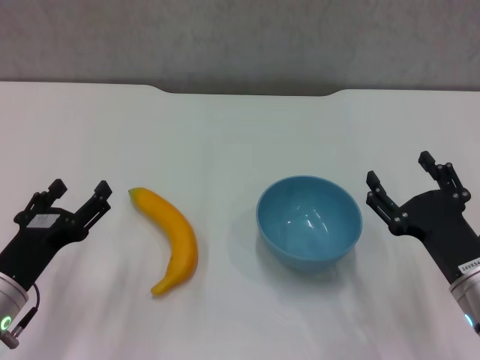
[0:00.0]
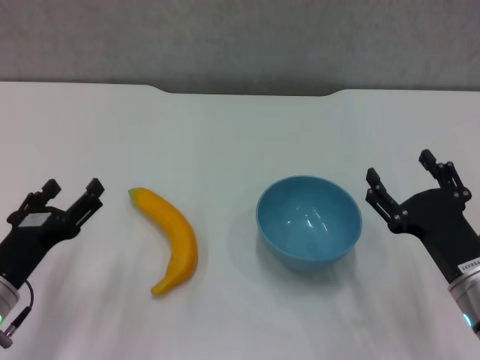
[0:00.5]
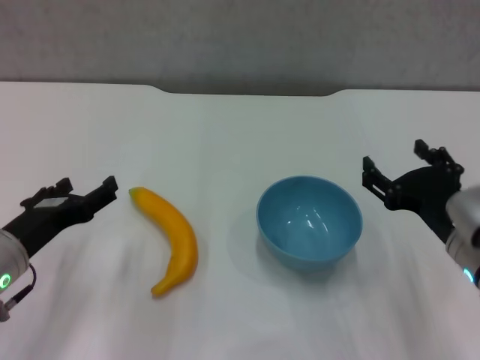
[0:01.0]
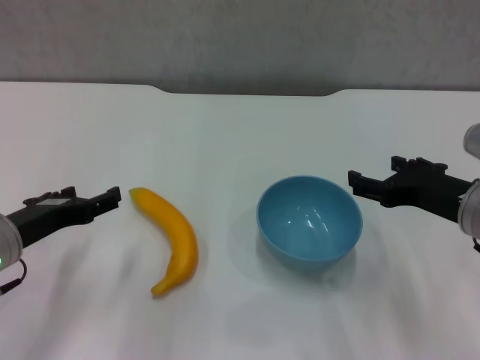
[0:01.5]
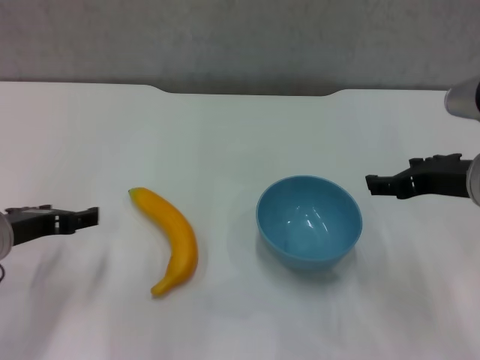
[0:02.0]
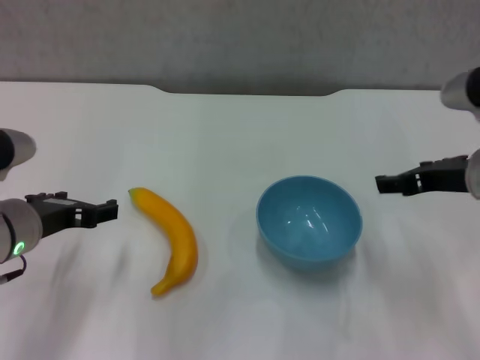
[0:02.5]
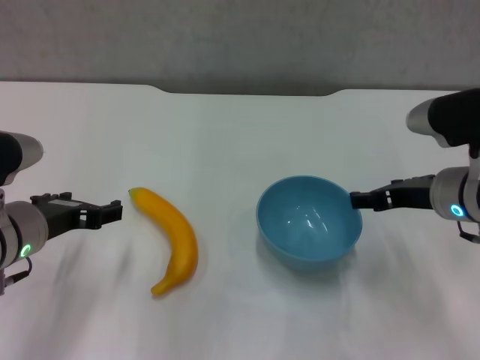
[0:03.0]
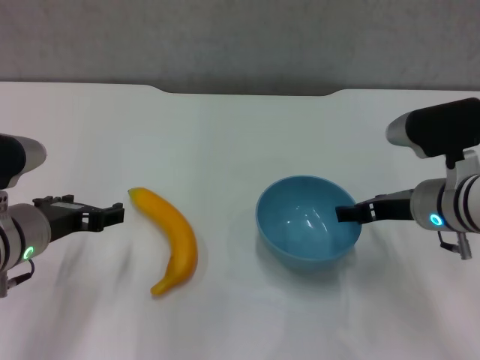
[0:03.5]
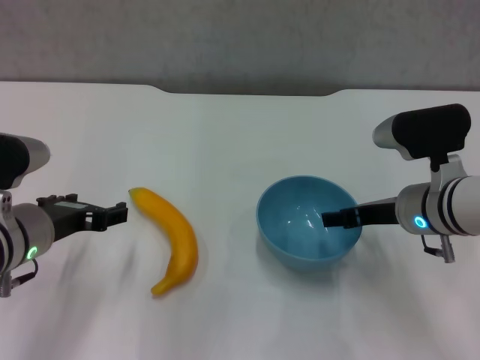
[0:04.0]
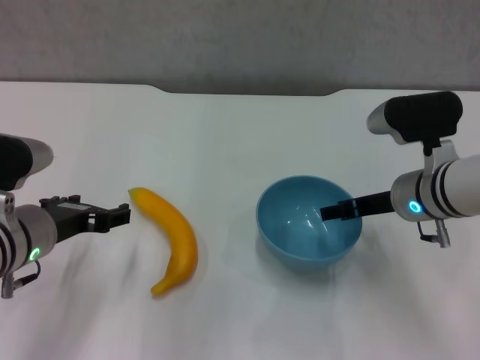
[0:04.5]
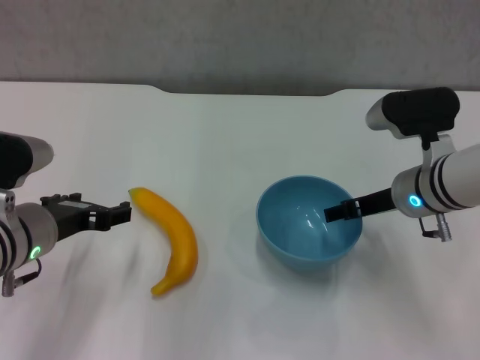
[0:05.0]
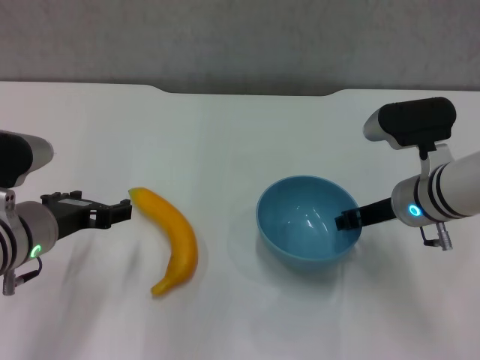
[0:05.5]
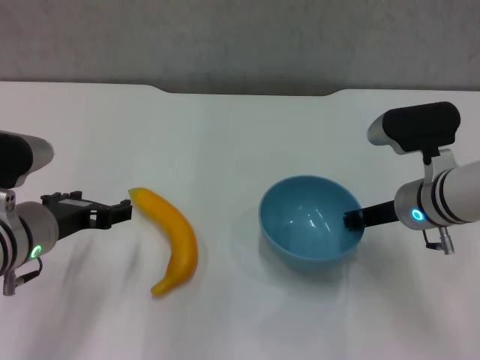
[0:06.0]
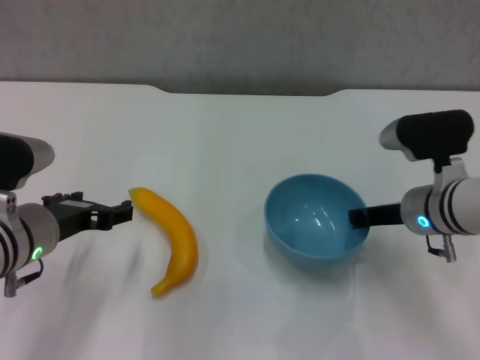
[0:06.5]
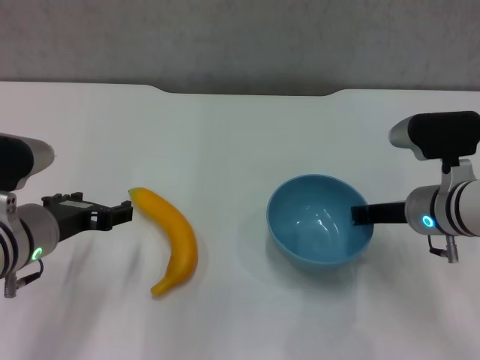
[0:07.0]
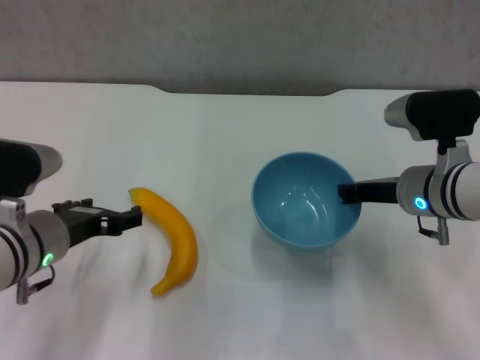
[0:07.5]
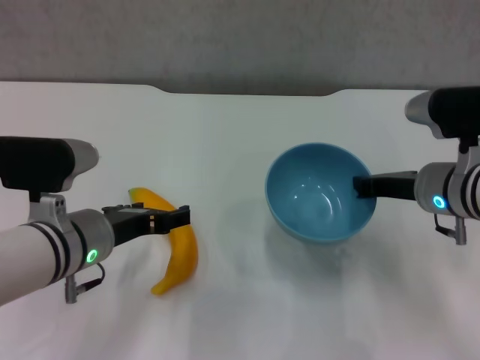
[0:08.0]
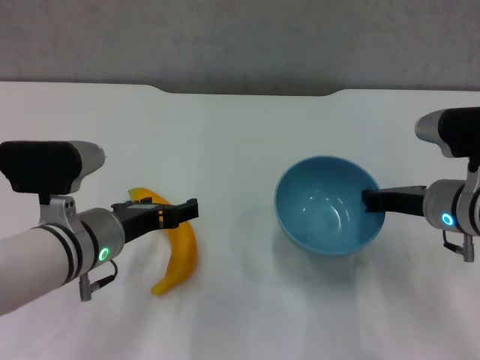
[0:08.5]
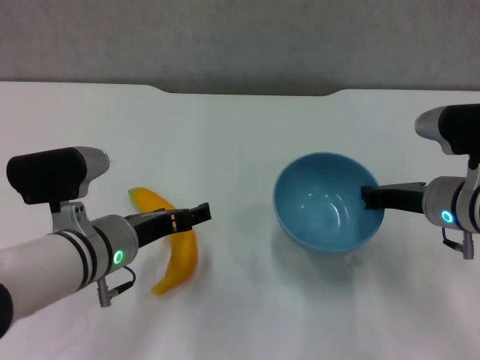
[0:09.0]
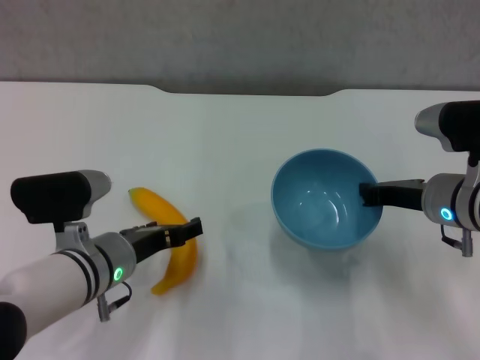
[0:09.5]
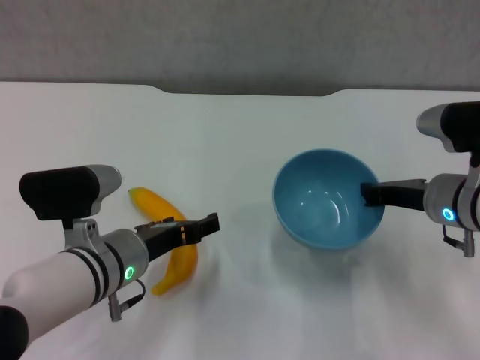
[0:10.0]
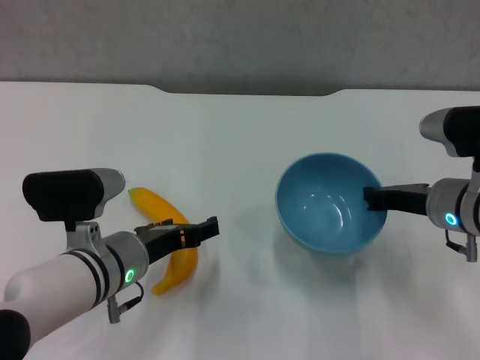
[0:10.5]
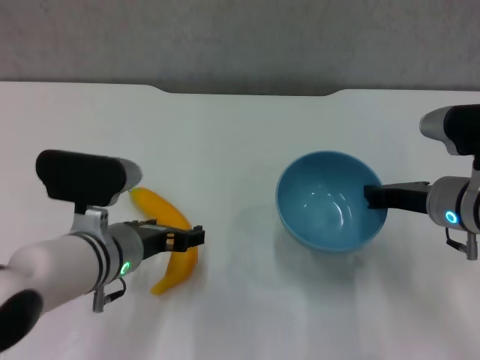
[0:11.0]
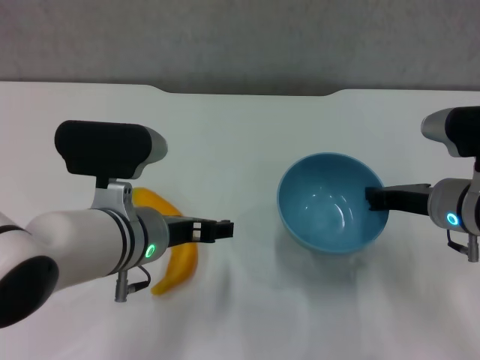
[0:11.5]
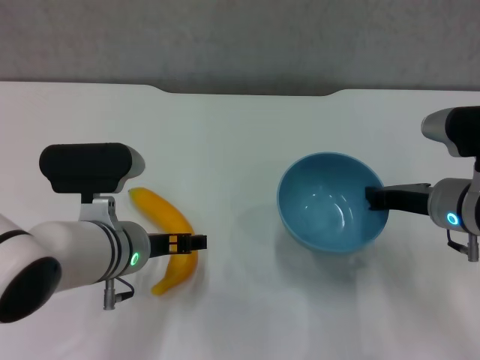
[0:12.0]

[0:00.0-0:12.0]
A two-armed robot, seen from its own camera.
Step, 0.0 to 6.5 s: Grasp the blue bowl with right gripper.
Step, 7.0 to 8.0 s: Lift the blue bowl with right gripper.
0.0 to 2.0 s: The right gripper is displaced upward and forward by some 15 cm, while the left gripper moves upward and forward, roughly 10 cm.
2.0 to 4.0 s: The right gripper heads downward, covering about 10 cm.
4.0 to 6.0 s: The right gripper closes up.

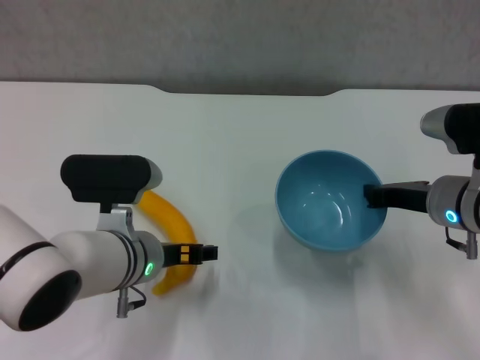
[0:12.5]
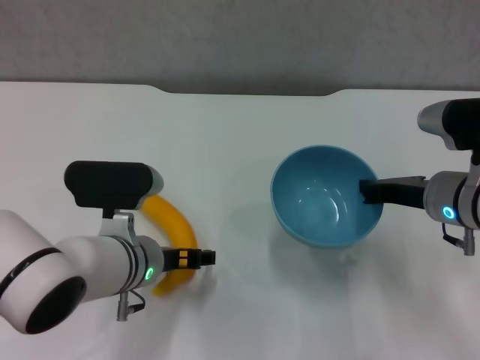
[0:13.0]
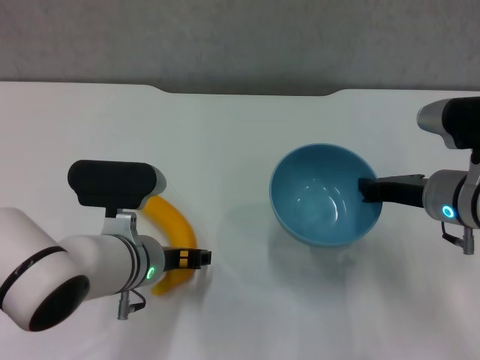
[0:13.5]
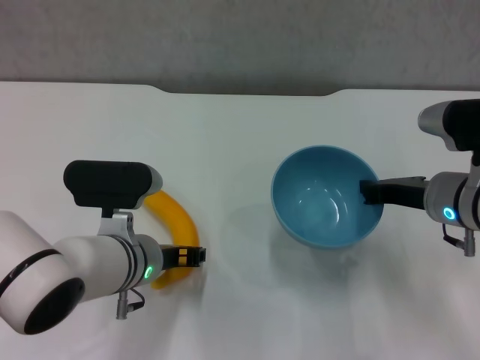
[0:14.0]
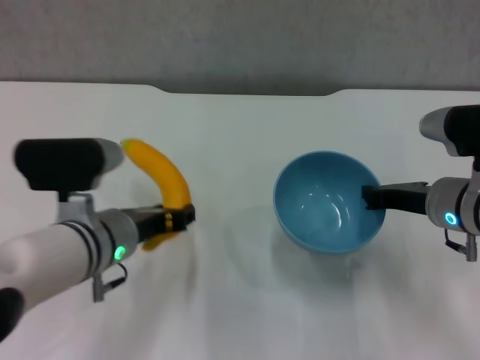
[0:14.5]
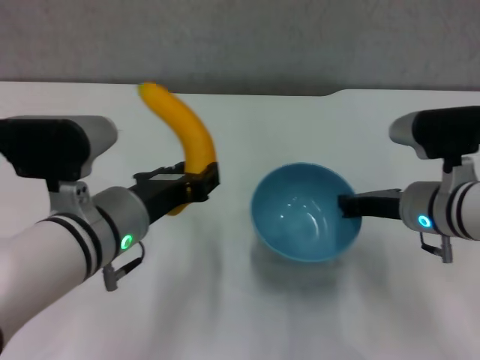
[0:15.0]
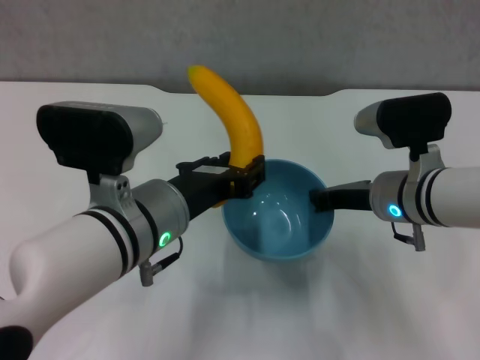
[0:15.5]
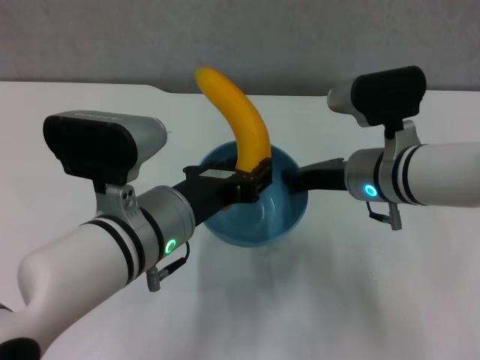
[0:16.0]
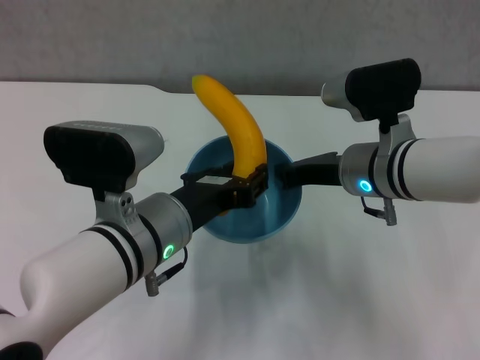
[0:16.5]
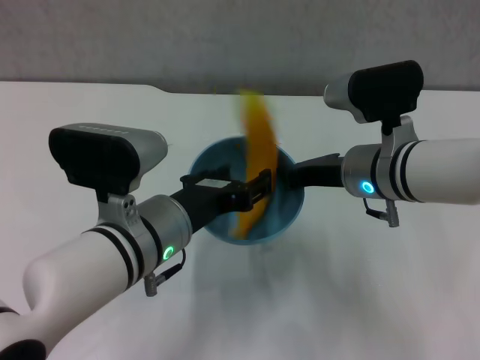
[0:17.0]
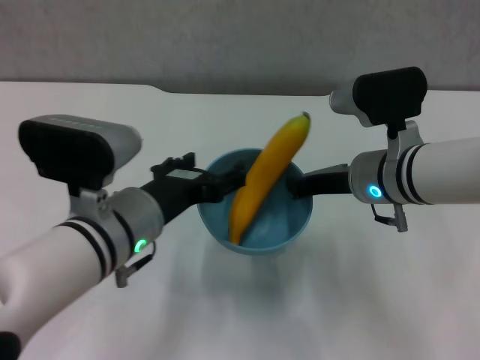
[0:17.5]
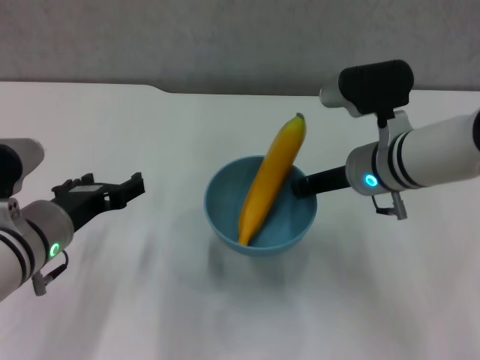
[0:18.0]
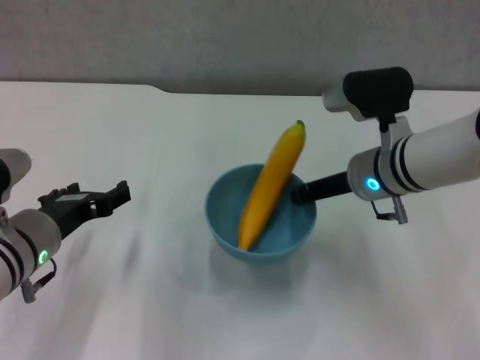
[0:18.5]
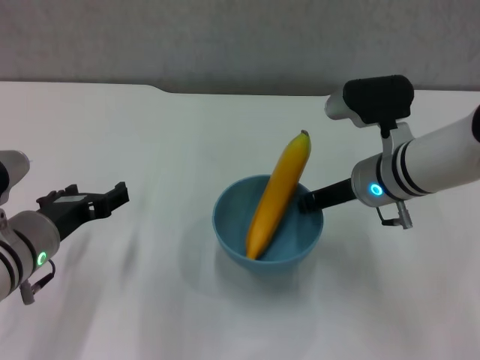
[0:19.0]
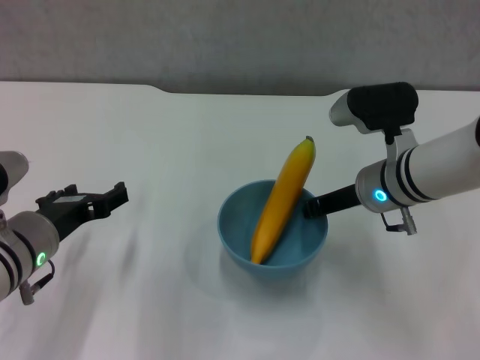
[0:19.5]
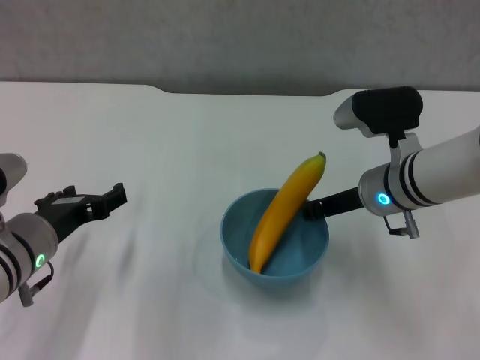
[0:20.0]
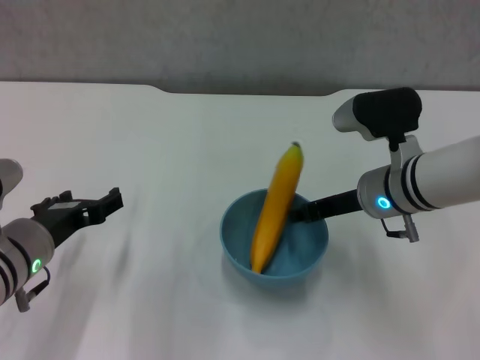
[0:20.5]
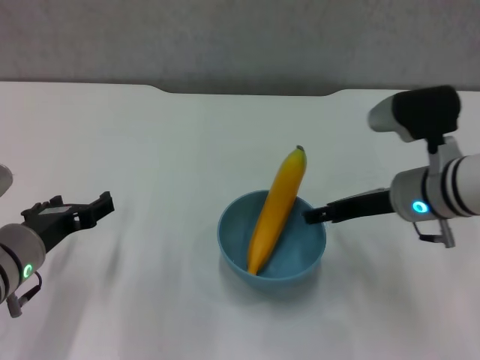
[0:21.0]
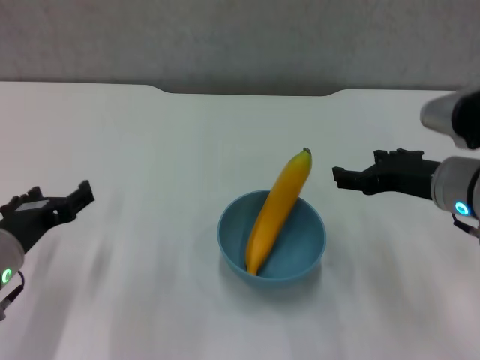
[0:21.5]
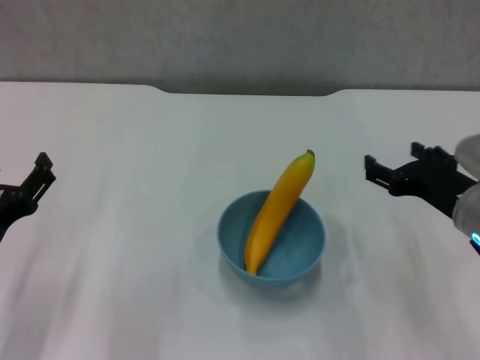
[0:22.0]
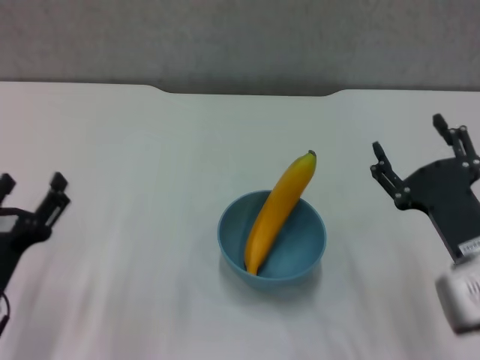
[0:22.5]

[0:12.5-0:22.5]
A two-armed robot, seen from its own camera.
Step, 14.0 to 17.5 s: Place the banana in the blue bowl with left gripper.
Step, 18.0 to 21.0 s: Place the bowl on the table with right gripper.
12.5 to 14.5 s: The left gripper closes.
14.5 to 16.5 s: The left gripper shifts by approximately 5 cm. Meanwhile the right gripper moves to the left, some 10 cm.
16.5 to 18.5 s: The left gripper is displaced to the left by roughly 10 cm, and opens its fingers.
18.5 to 20.5 s: The right gripper opens its fingers.
20.5 to 22.5 s: The left gripper travels backward by approximately 10 cm; the right gripper shifts about 15 cm backward, and opens up.

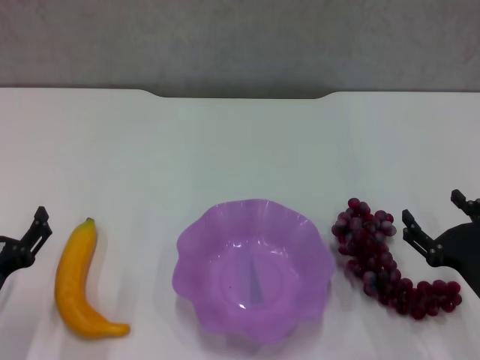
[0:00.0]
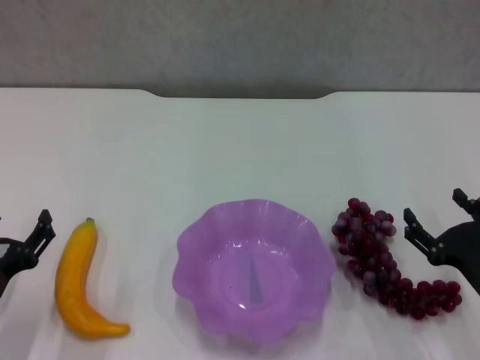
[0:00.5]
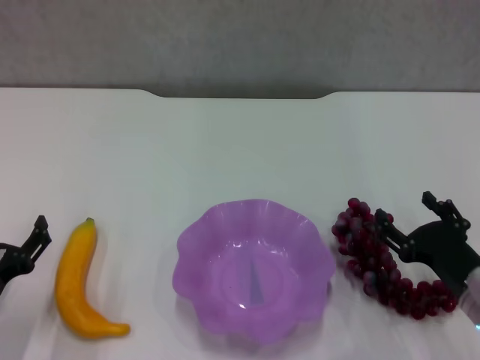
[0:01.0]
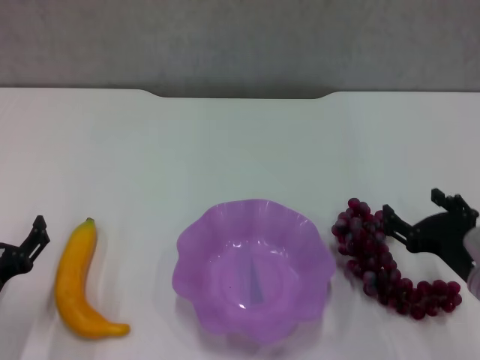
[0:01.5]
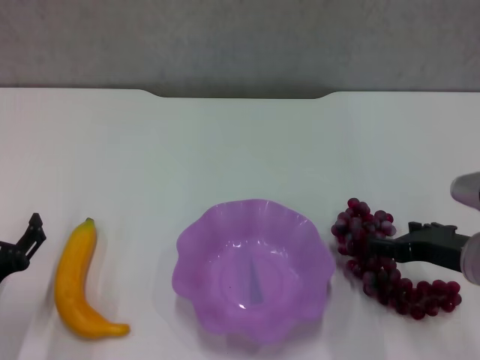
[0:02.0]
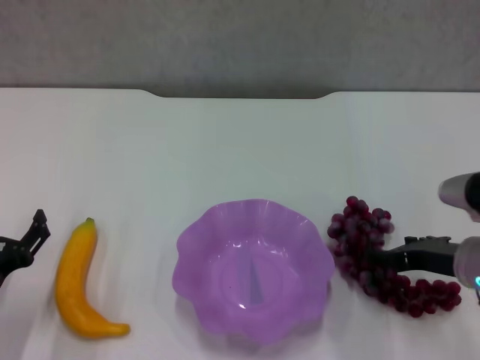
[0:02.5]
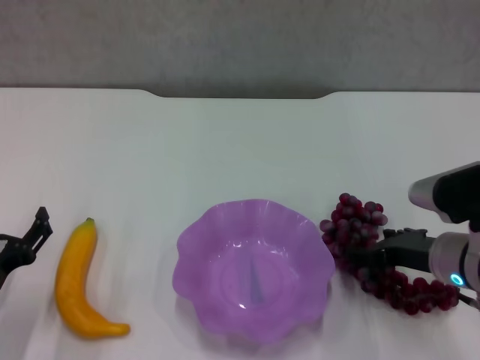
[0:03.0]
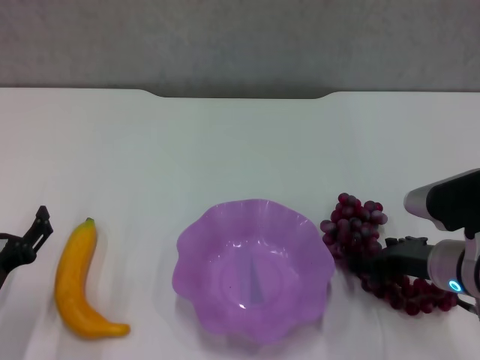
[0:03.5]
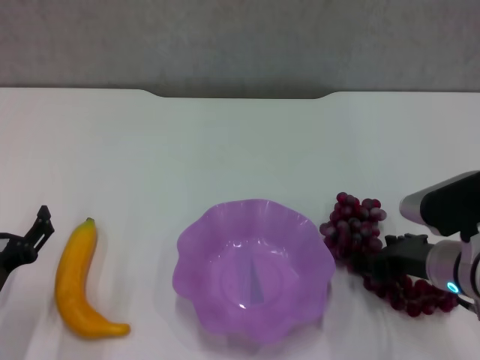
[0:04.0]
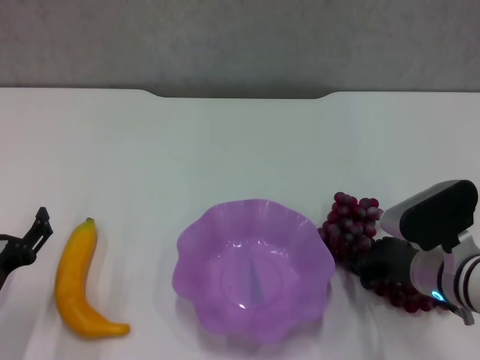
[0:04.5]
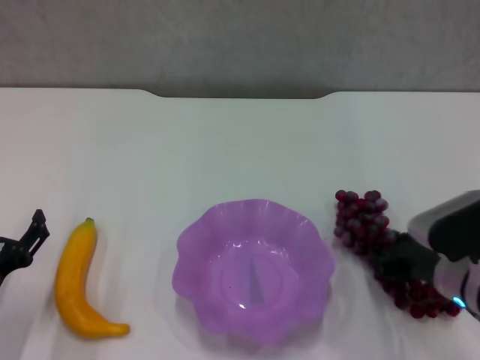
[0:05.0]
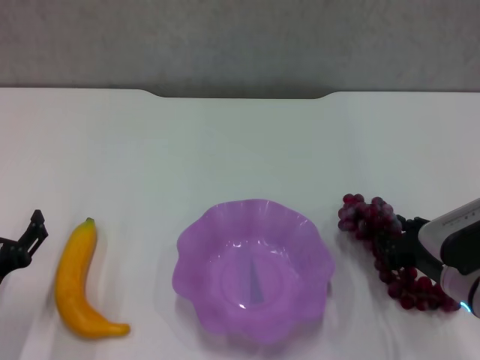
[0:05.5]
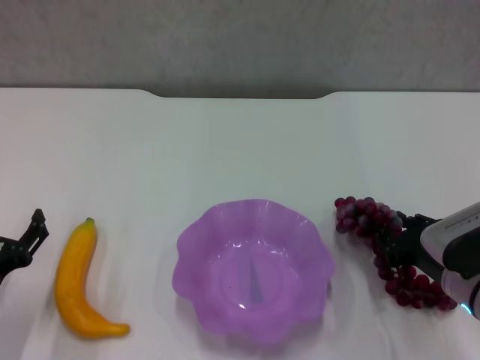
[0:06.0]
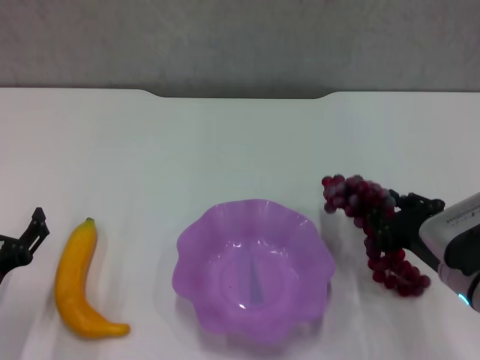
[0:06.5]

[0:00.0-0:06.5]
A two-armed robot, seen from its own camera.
Step, 0.0 to 4.5 s: Grasp the grape with right gripper.
0.0 to 2.0 s: The right gripper moves upward and forward, roughly 10 cm.
2.0 to 4.5 s: The right gripper shifts by approximately 5 cm, and closes up.
